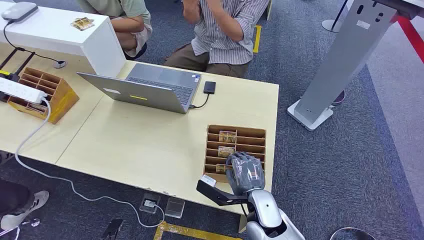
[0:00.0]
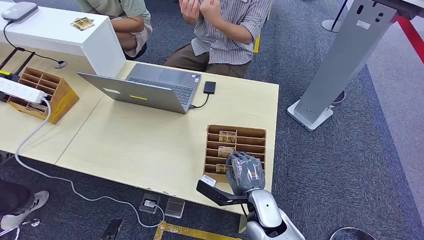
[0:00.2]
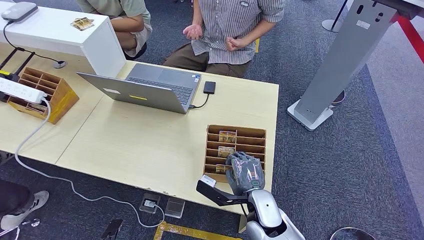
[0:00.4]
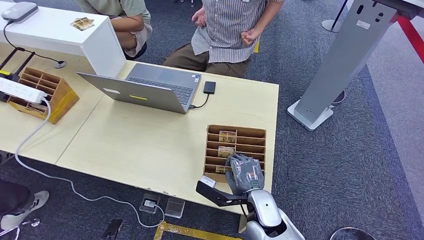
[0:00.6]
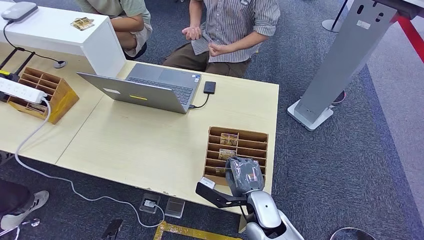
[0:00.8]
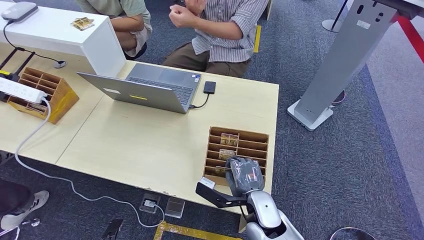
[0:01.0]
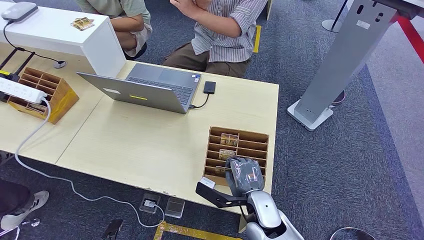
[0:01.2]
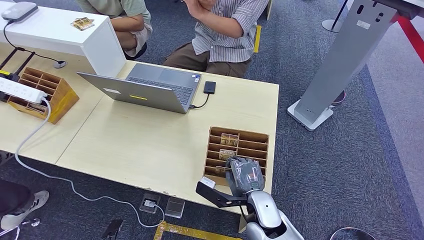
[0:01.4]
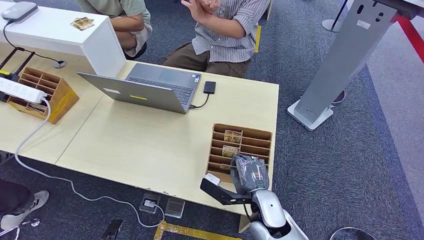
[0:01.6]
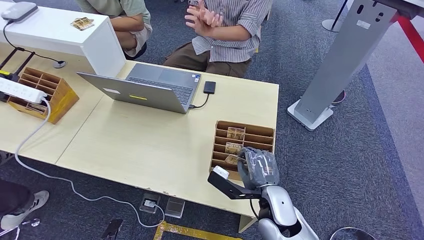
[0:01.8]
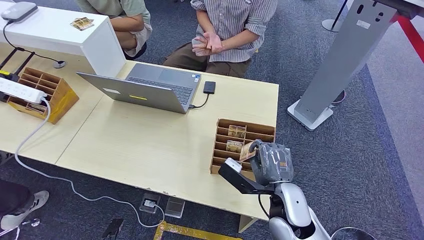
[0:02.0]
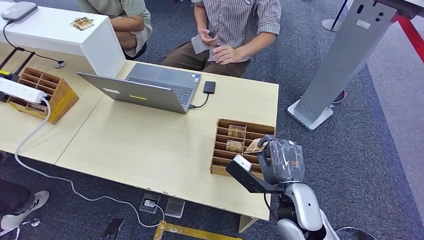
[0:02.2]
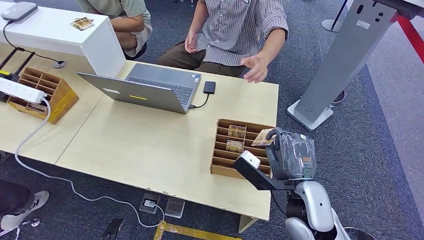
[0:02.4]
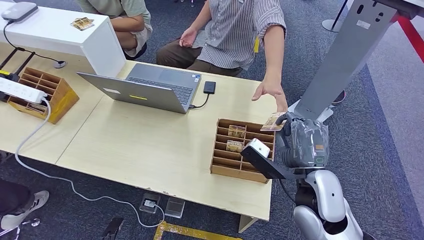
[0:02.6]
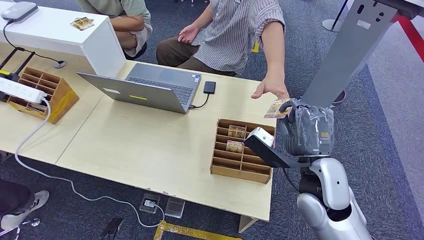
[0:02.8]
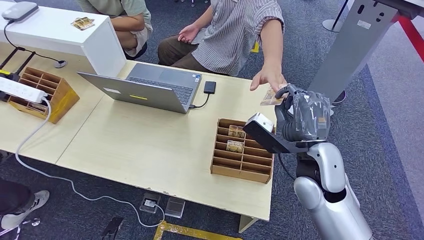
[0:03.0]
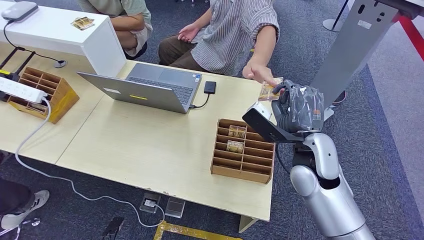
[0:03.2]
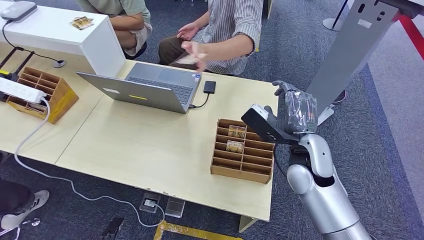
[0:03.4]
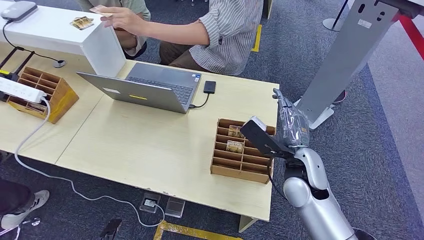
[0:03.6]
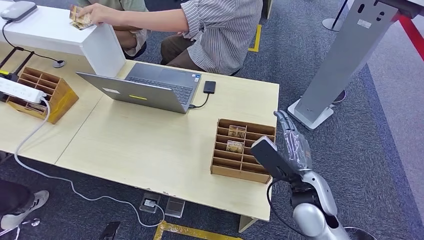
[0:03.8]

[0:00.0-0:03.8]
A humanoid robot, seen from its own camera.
Step, 0:00.0 to 0:01.8: Pick up the room card from the card holder.
Step, 0:02.8 to 0:03.8: Hand the room card to the target.
0:01.2 to 0:02.6: The right hand heads upward and to the right, covering some 15 cm.
0:02.6 to 0:03.8: The right hand travels forward and back again, some 10 cm each way.
